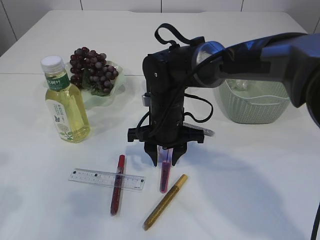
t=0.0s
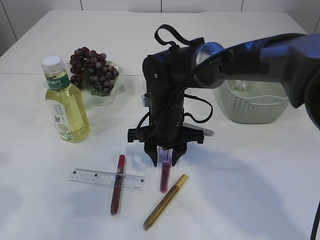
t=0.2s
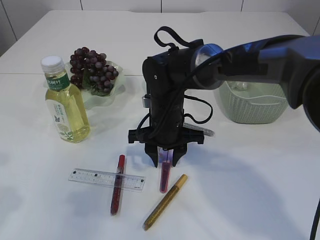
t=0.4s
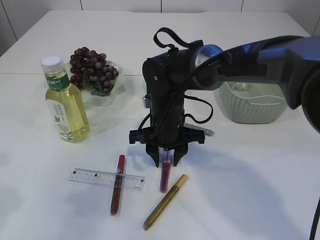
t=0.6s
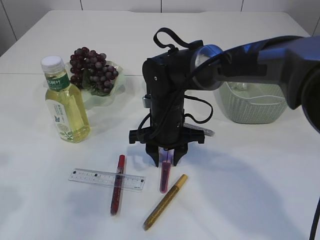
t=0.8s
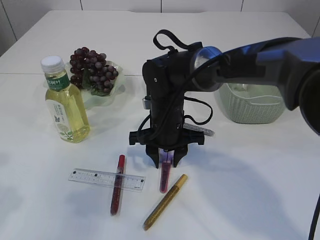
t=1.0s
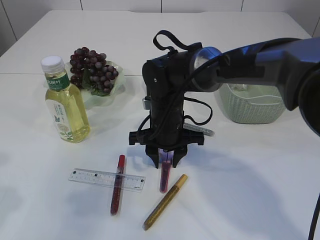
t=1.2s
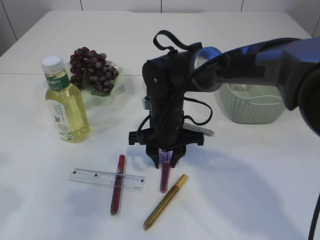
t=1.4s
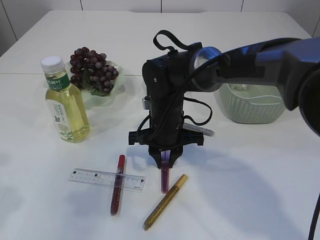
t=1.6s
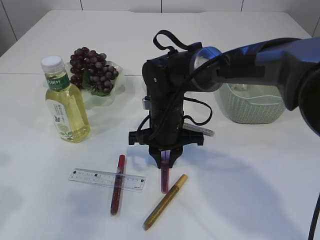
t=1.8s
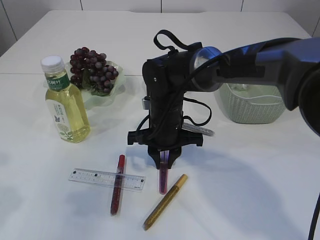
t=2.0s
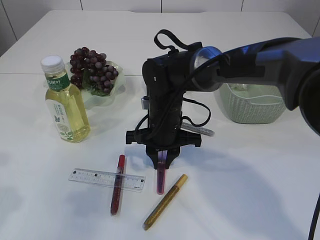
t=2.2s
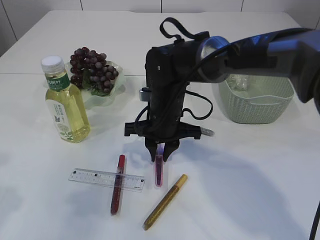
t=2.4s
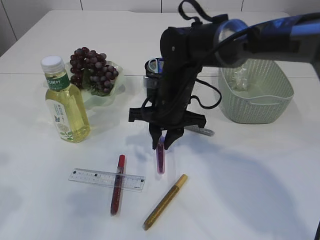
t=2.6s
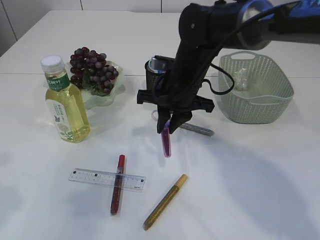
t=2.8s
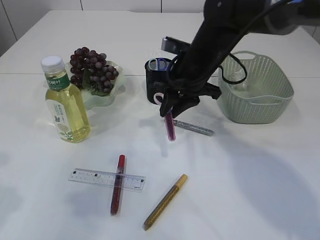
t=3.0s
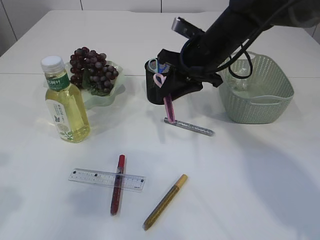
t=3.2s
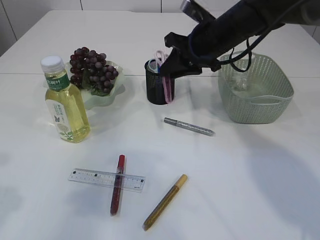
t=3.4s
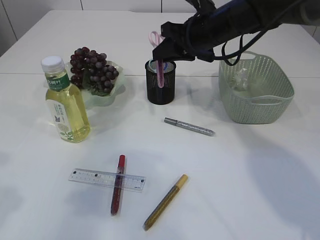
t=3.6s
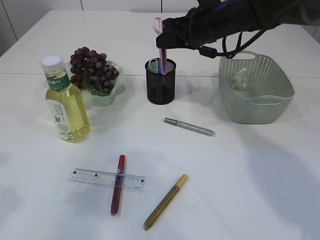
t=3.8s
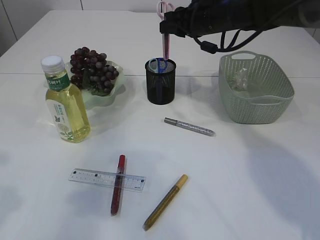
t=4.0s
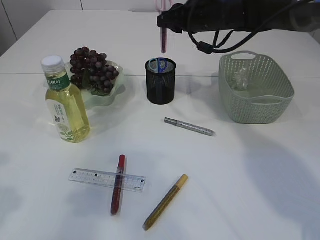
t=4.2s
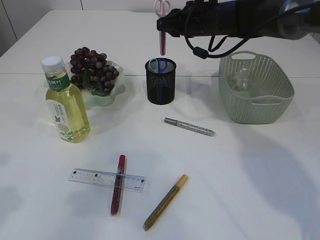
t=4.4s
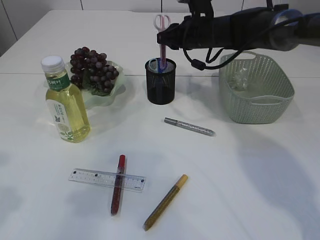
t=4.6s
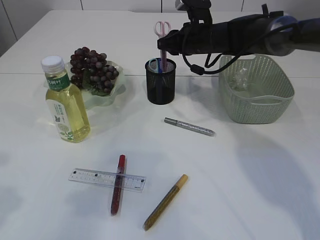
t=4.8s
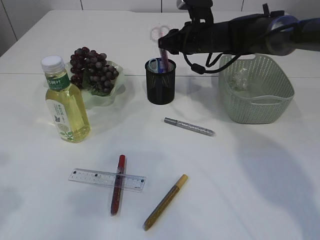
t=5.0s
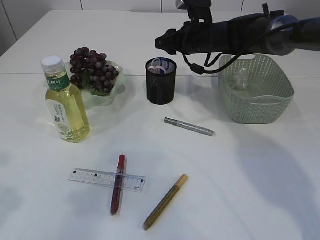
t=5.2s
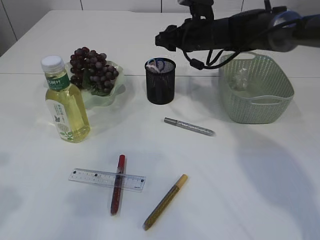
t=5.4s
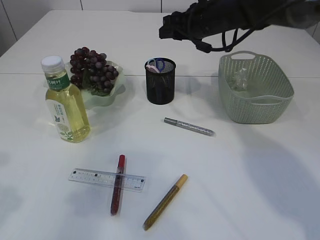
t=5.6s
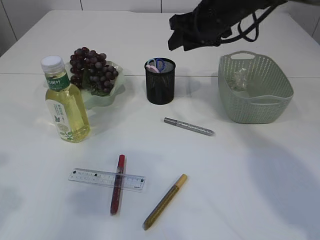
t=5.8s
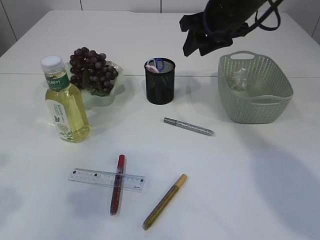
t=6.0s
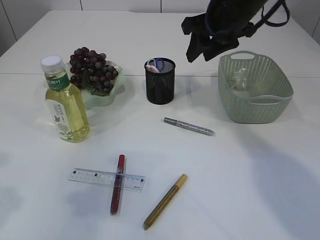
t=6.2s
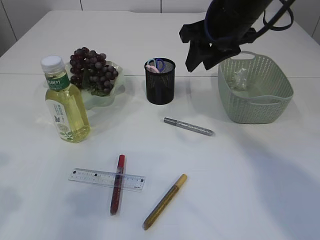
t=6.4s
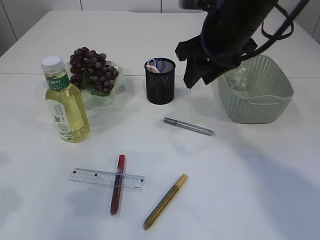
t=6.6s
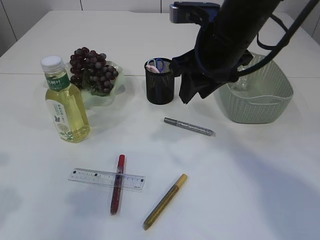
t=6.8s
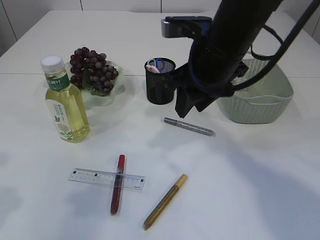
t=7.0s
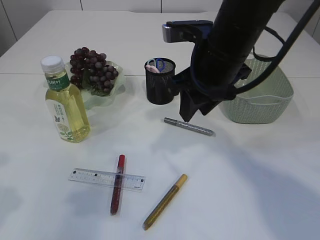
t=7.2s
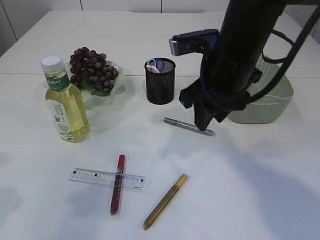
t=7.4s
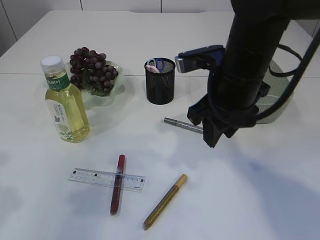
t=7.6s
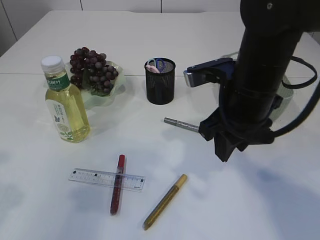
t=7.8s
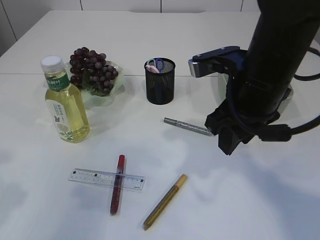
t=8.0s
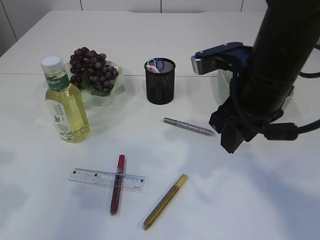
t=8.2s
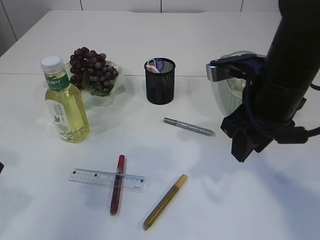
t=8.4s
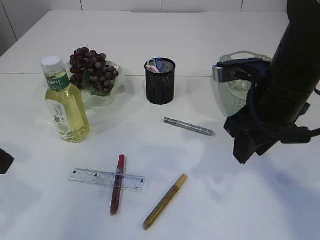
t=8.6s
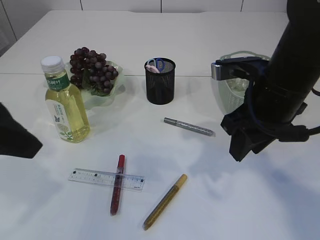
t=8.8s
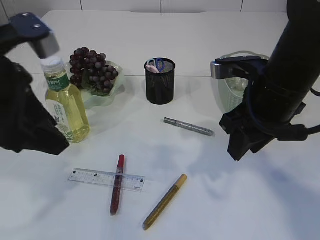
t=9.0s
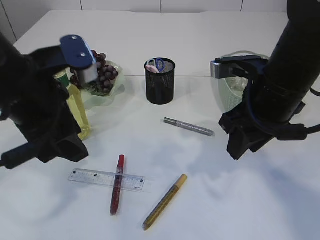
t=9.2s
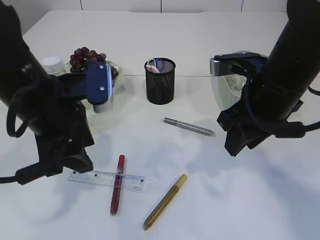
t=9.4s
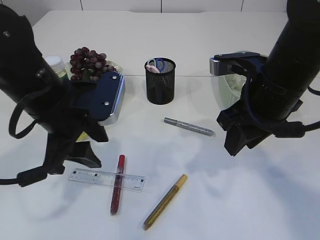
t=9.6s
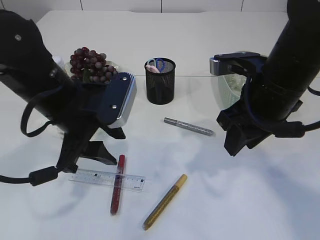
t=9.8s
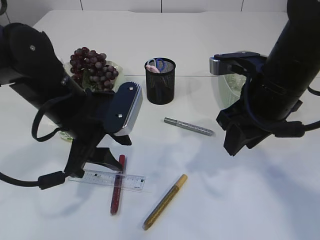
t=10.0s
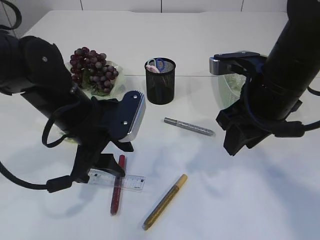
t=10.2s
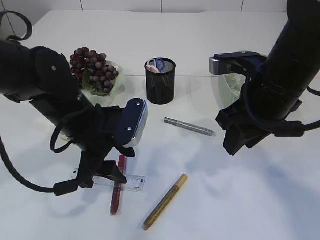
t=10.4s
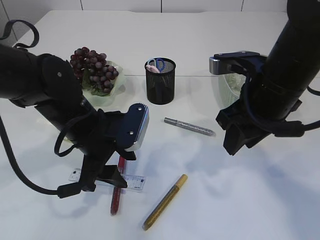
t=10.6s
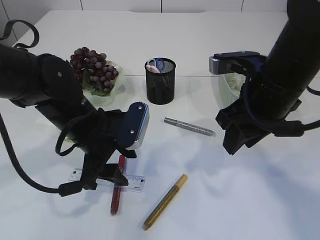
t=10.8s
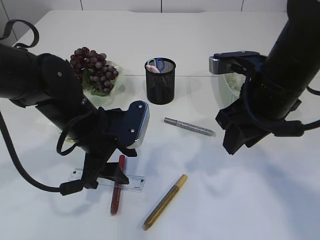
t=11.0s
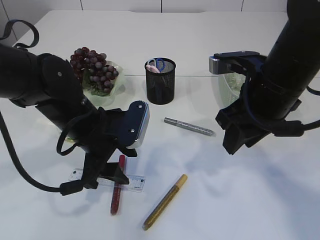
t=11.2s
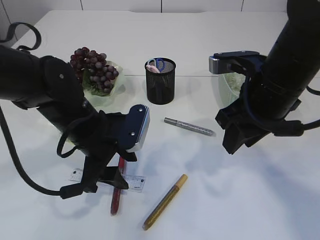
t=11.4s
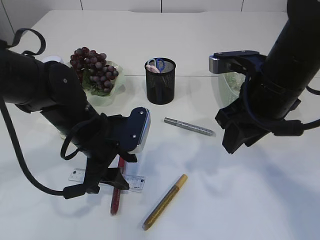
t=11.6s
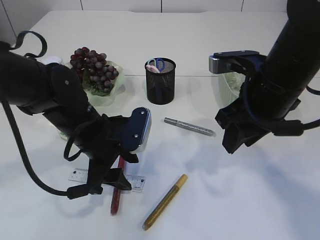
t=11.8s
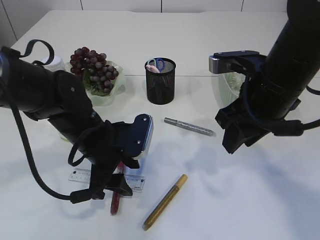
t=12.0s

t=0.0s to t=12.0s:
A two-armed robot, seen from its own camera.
Step, t=0.0s to t=2.8s: pick up the pink scissors.
Step, t=3.0s to t=5.8s: Place the pink scissors into the pen holder.
t=0.0s to t=1.6s: Neither gripper changes place.
t=1.6s to t=3.0s: The right gripper heads upward and to the right, covering about 10 cm.
t=3.0s to t=4.4s: The right gripper travels forward by some 10 cm.
t=4.4s to t=6.0s: The right gripper is displaced backward by approximately 5 cm.
t=6.0s to t=7.6s: The right gripper moves backward, roughly 15 cm.
t=7.6s to t=9.0s: The left gripper shifts roughly 10 cm to the right. Meanwhile the right gripper shifts by approximately 5 cm.
t=9.0s to t=10.4s: The left gripper moves downward, forward and to the right, about 15 cm.
t=10.4s to t=12.0s: The grippers move only a little.

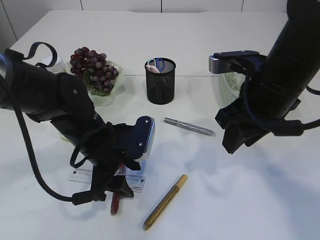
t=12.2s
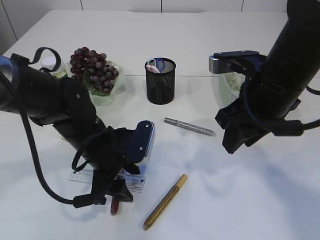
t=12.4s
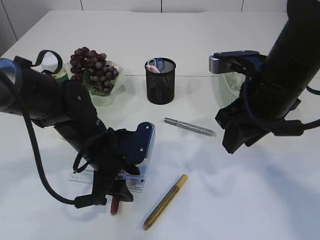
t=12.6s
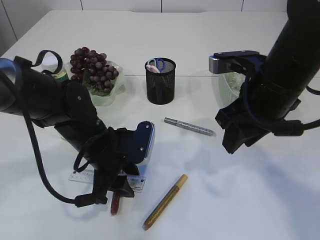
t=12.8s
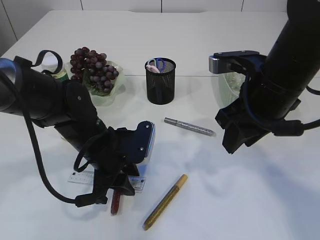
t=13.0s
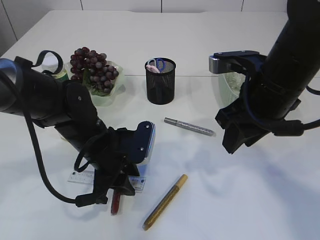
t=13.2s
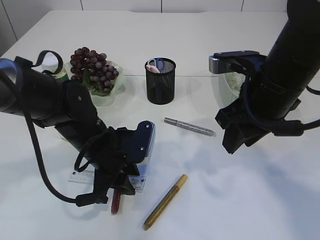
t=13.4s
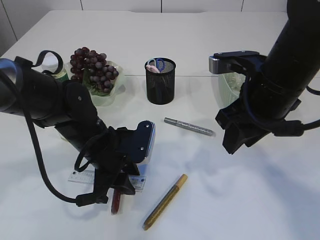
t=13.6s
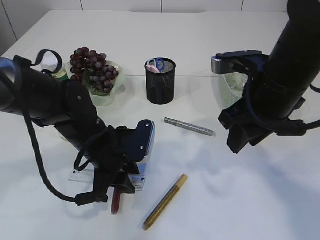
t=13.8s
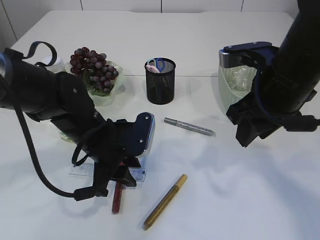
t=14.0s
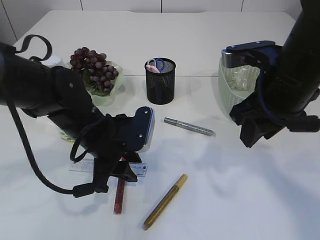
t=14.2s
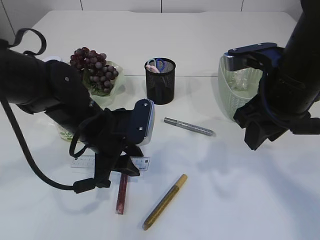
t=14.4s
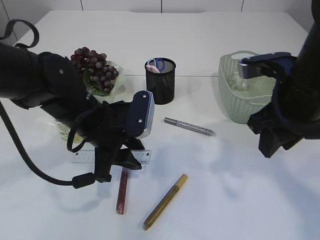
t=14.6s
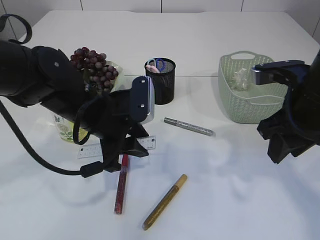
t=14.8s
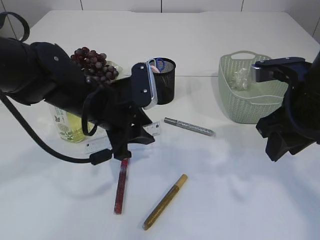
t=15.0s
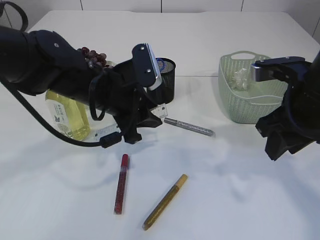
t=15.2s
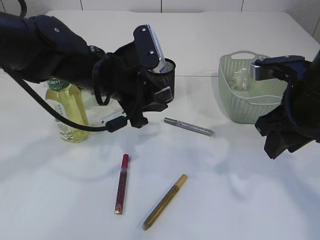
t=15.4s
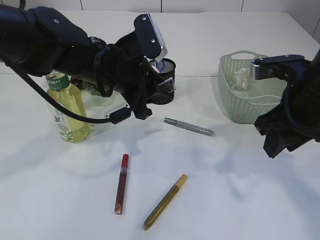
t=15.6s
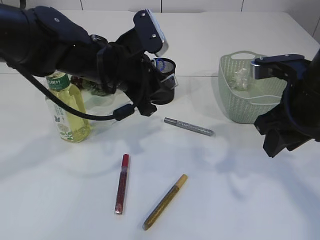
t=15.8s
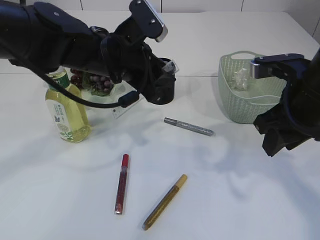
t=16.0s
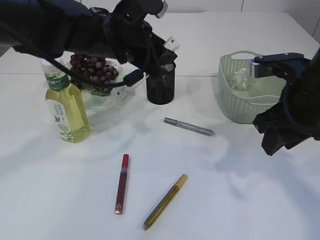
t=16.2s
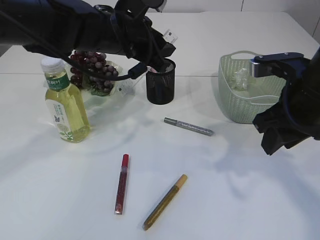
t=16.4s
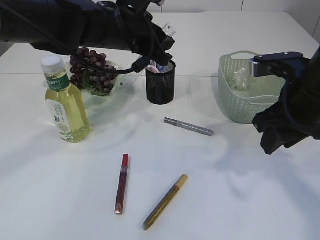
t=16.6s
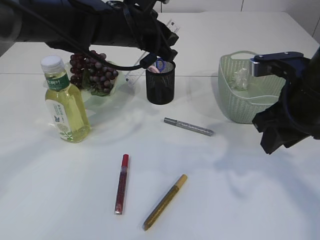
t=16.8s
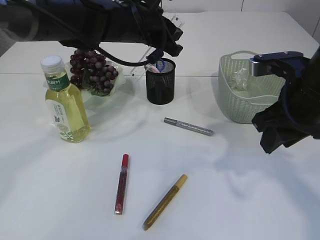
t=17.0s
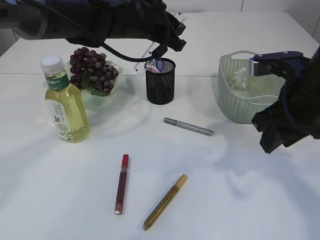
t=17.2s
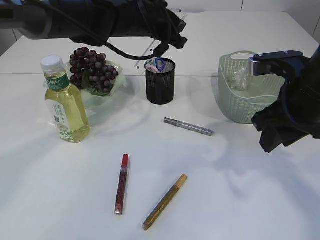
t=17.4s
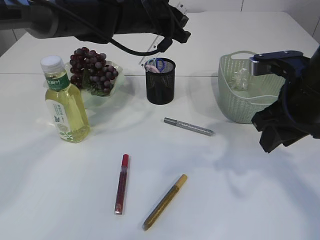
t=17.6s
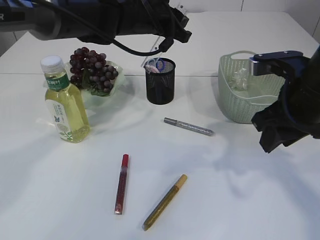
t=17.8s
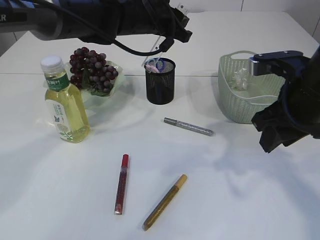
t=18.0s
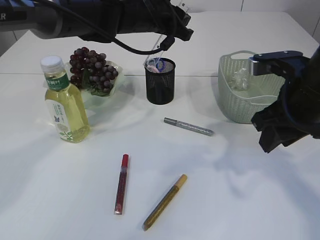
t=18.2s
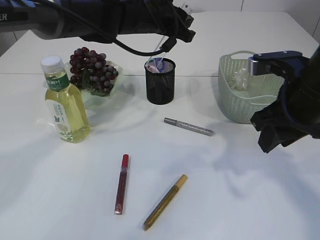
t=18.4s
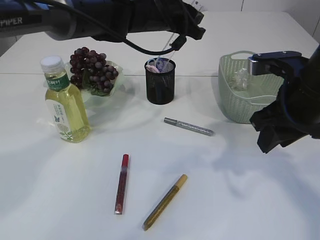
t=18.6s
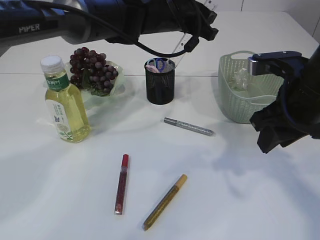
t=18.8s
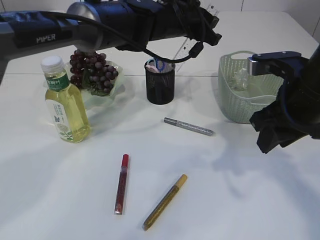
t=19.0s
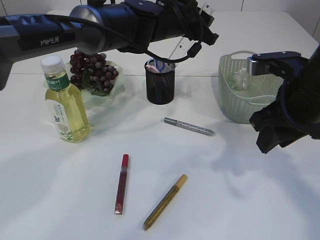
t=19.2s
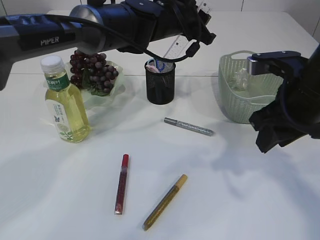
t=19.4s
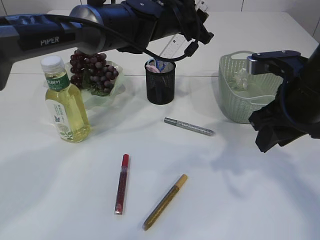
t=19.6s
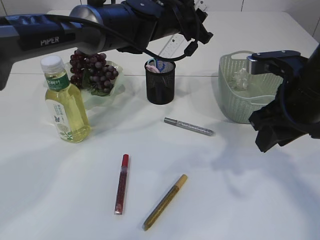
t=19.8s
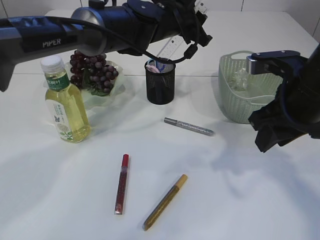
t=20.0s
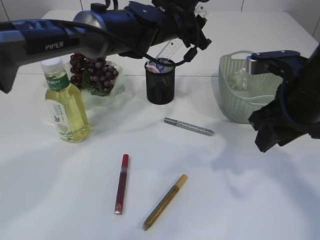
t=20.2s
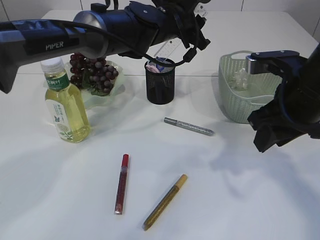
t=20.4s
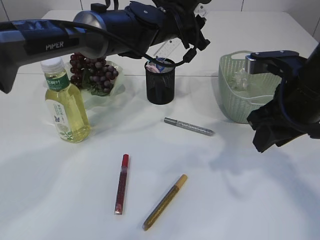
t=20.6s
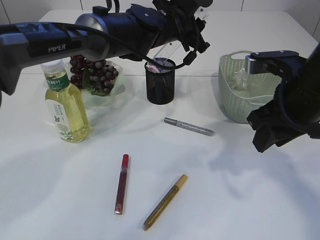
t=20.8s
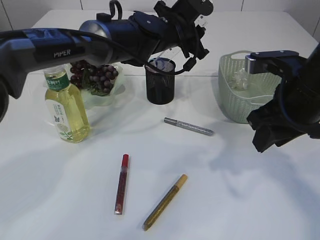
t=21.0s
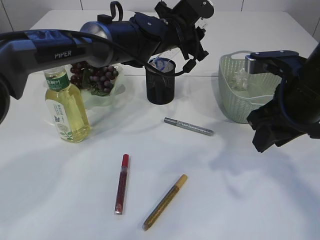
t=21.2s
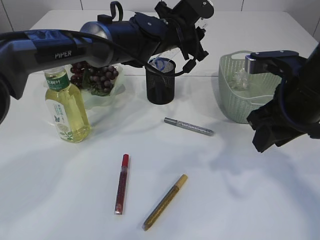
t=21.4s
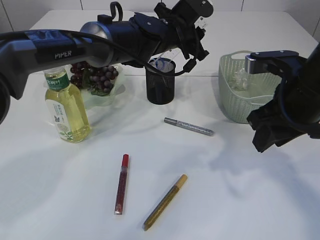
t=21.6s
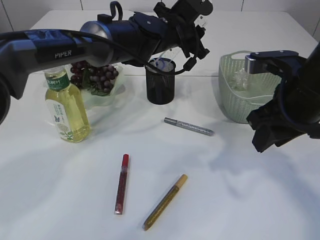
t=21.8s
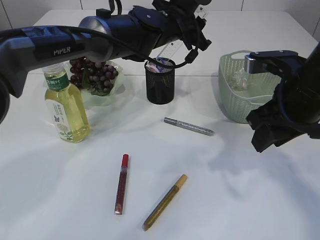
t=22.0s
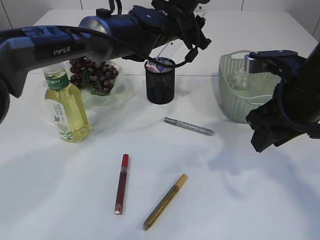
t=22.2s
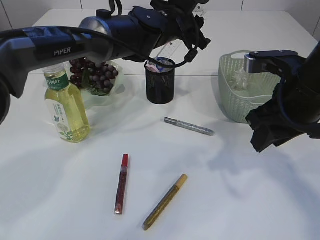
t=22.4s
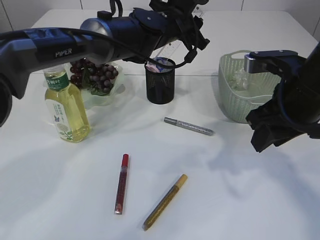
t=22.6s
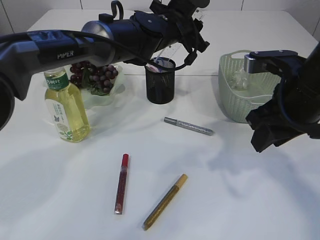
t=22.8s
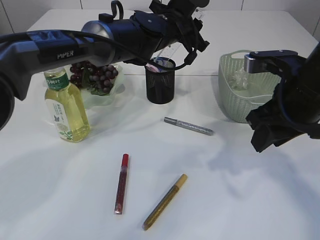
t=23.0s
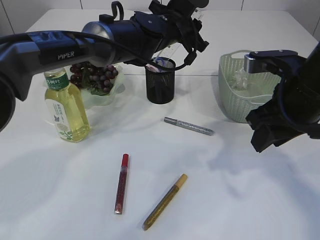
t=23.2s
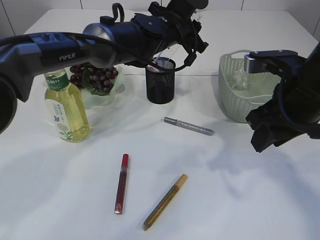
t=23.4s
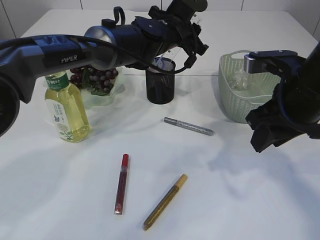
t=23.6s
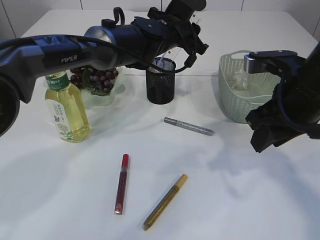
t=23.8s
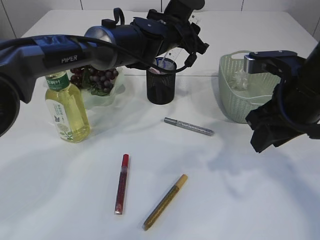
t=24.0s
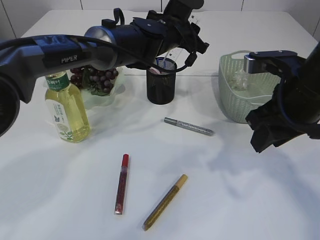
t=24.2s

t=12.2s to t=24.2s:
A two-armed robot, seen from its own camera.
Step, t=12.2s to t=15.0s: pick up the ruler.
t=12.2s to t=13.8s: The grippers make only small movements.
t=13.8s to t=15.2s: The left gripper goes about 10 cm upward, while the right gripper shifts by some 5 cm.
t=15.2s to t=16.6s: The left gripper shifts some 10 cm upward and forward.
t=16.6s to t=18.2s: The left gripper heads forward, covering about 5 cm.
t=18.2s to t=19.8s: The grippers stay close to where they were, moving slightly.
t=19.8s to t=24.2s: The grippers stay close to where they were, moving slightly.
